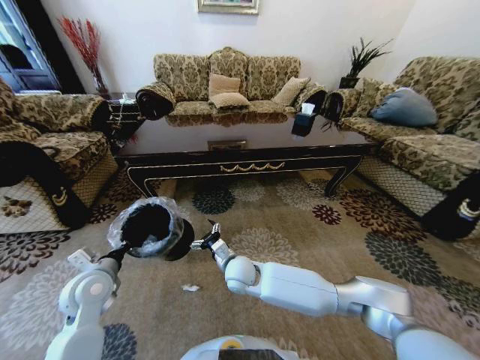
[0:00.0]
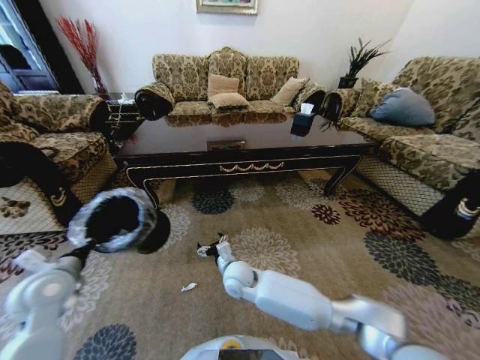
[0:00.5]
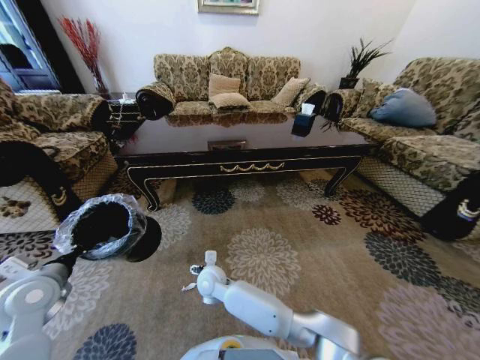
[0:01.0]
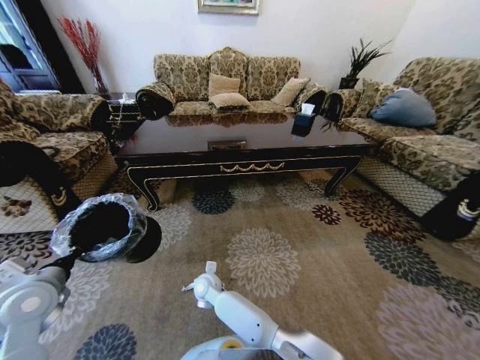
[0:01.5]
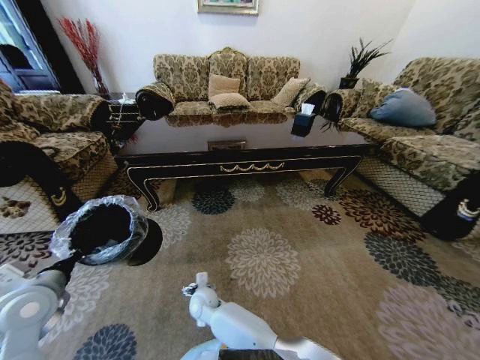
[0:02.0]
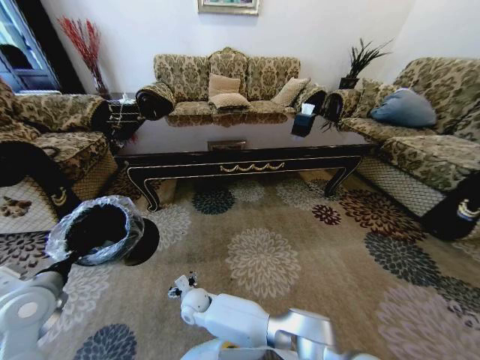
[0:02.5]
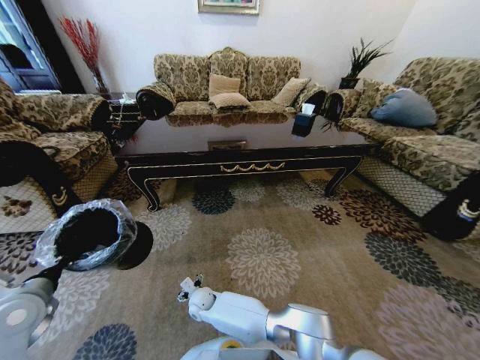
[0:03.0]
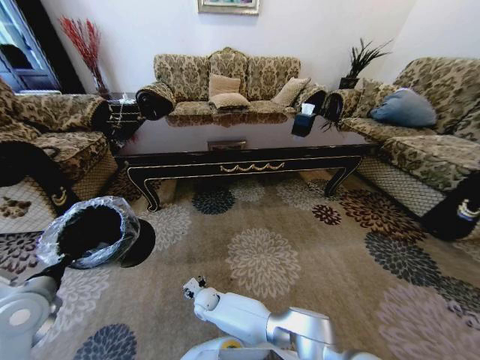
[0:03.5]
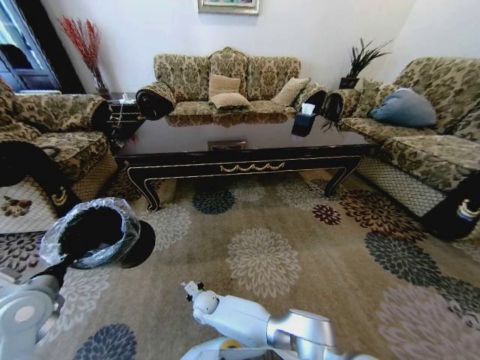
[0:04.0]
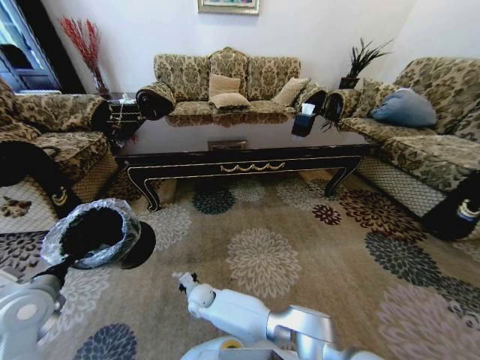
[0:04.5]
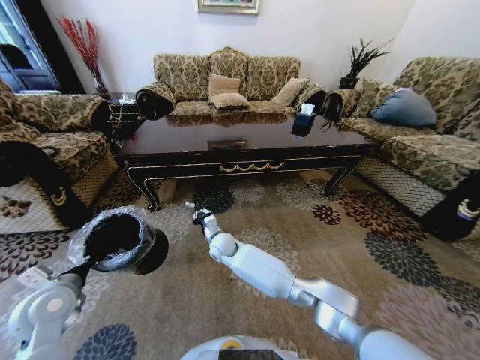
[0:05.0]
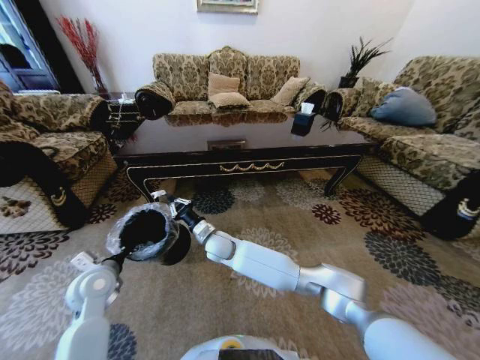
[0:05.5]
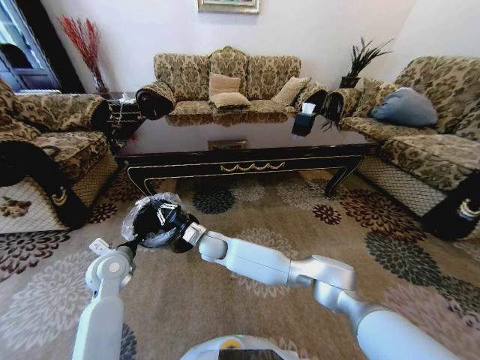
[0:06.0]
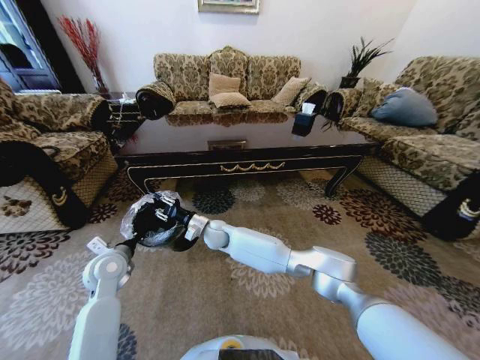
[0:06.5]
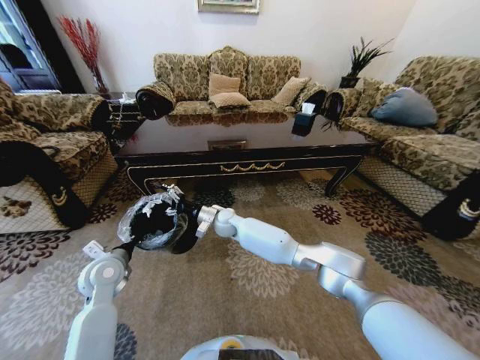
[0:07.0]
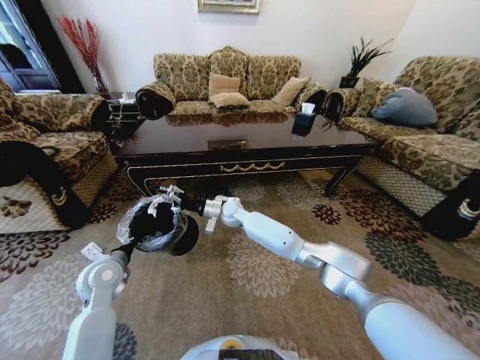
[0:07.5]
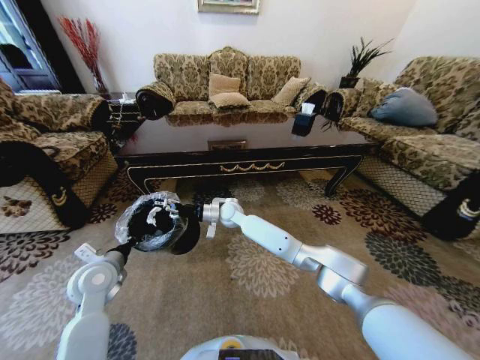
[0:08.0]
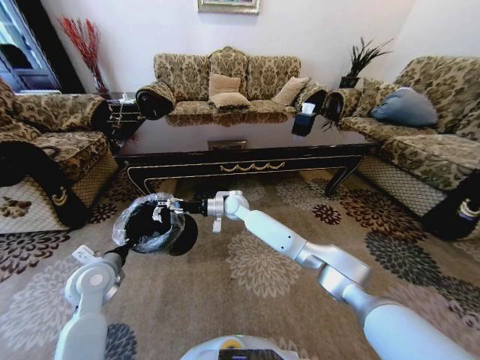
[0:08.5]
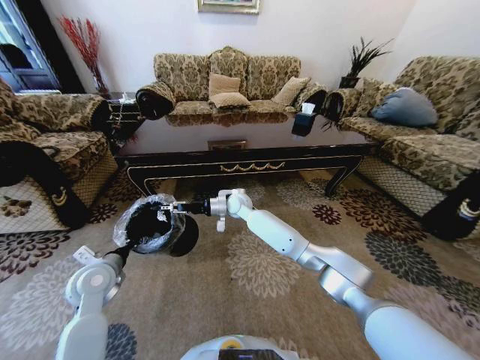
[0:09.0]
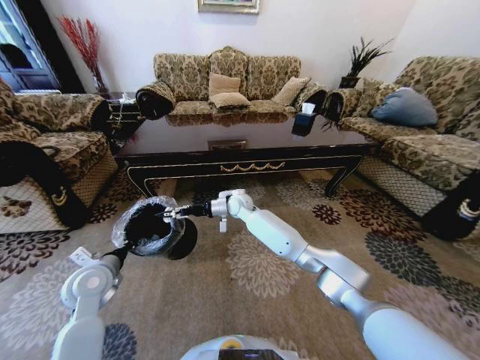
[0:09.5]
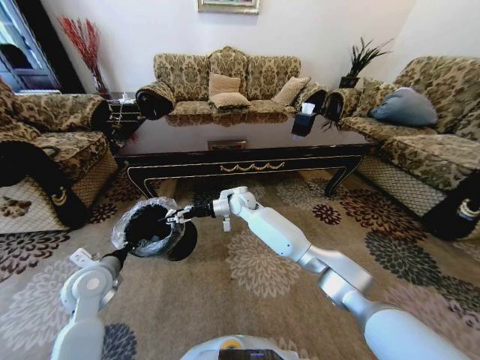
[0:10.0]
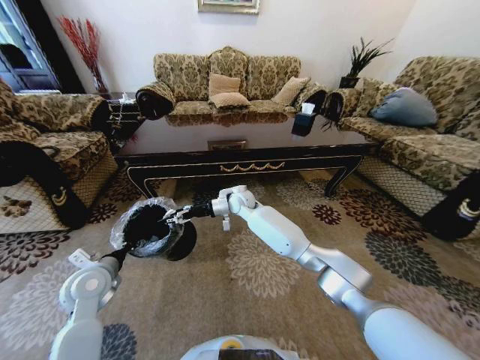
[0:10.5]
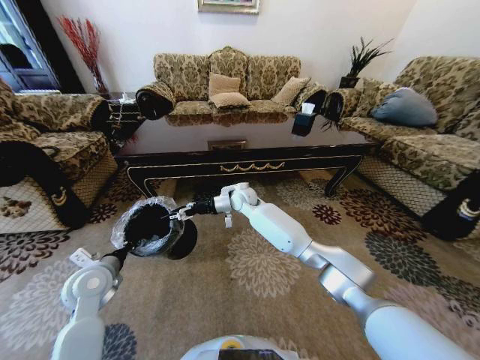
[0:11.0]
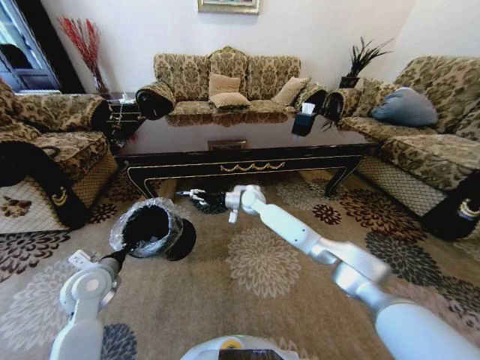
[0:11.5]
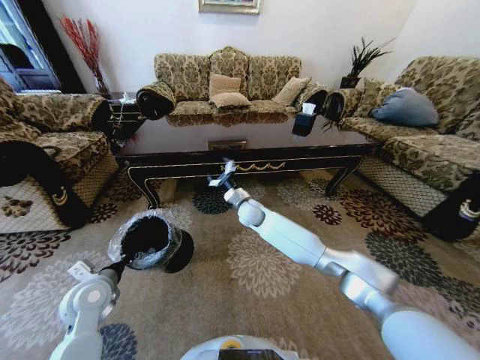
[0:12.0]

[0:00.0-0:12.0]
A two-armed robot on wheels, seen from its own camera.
Task of the whole recording: Move to the front of the table and pick up the trash from the floor, then place it into the trash bin.
0:00.0 to 0:02.0: The right gripper moves downward and to the left, about 20 cm; the left gripper travels to the left and backward by roughly 10 cm.
0:02.0 to 0:04.0: The right gripper moves downward, some 5 cm, and closes up.
0:04.0 to 0:06.0: The left gripper moves forward, to the right and downward, some 15 cm, while the right gripper is displaced upward and forward by roughly 25 cm.
0:06.0 to 0:08.0: The right gripper moves forward, to the right and upward, about 15 cm, and opens its fingers.
0:08.0 to 0:10.0: The right gripper shifts by roughly 5 cm.

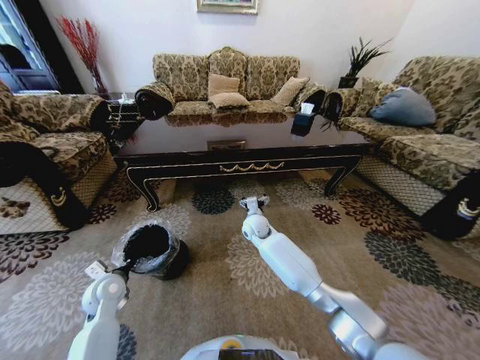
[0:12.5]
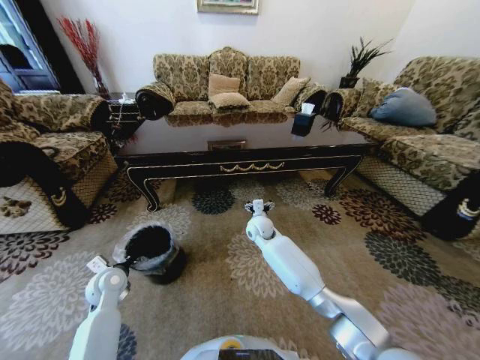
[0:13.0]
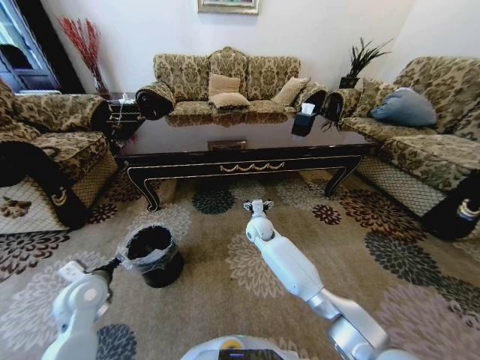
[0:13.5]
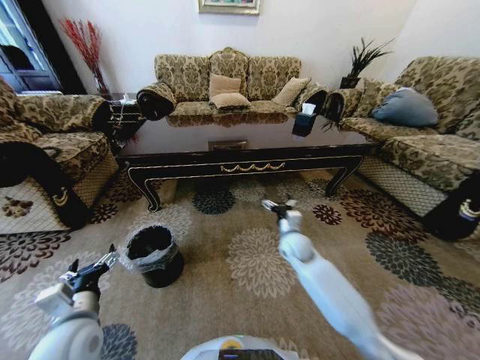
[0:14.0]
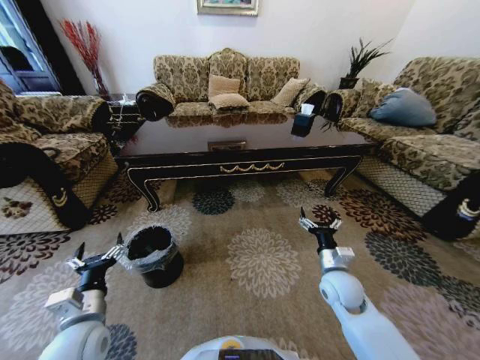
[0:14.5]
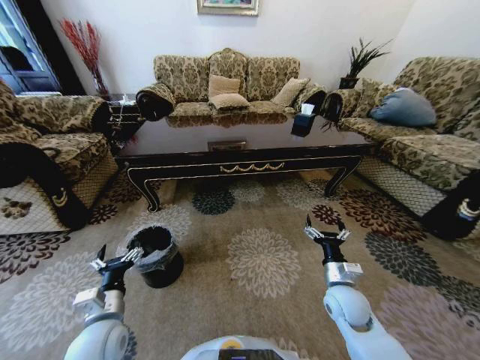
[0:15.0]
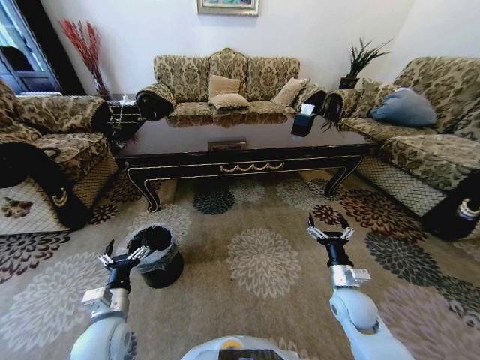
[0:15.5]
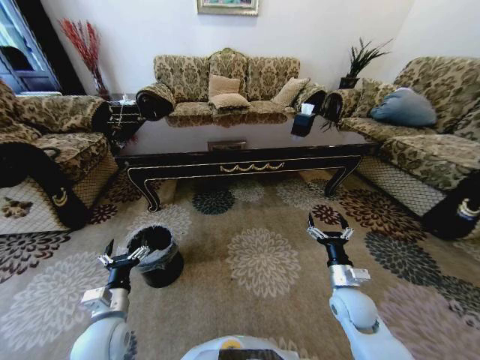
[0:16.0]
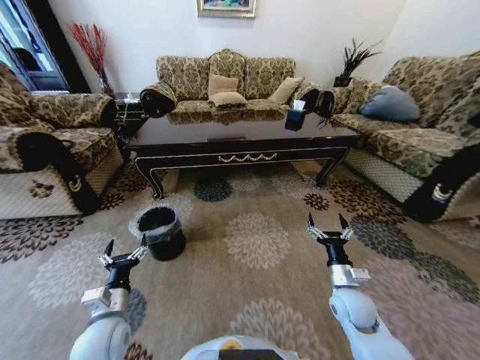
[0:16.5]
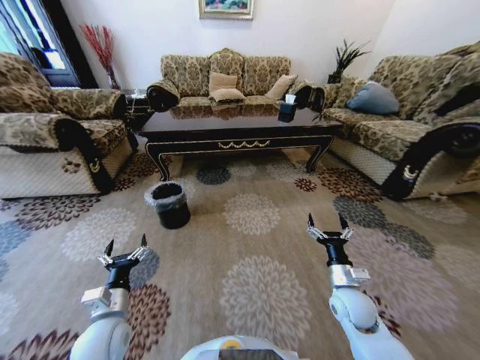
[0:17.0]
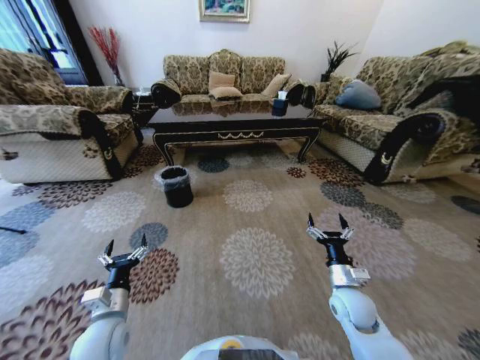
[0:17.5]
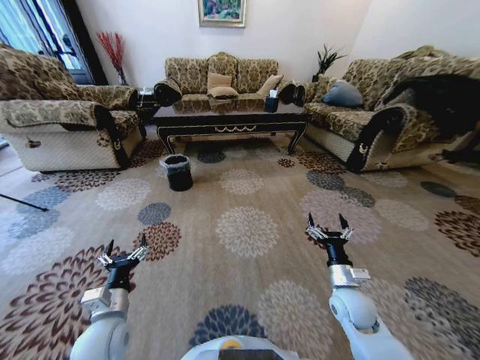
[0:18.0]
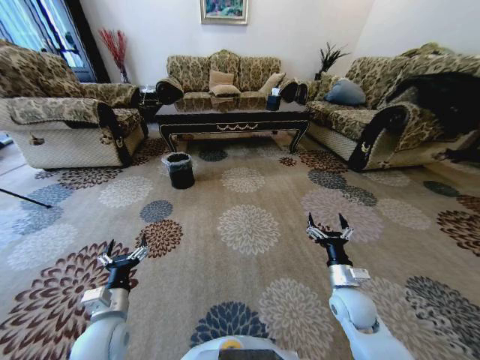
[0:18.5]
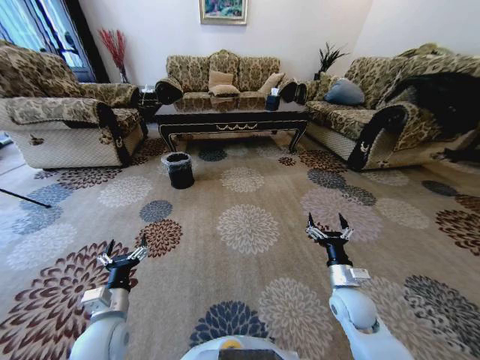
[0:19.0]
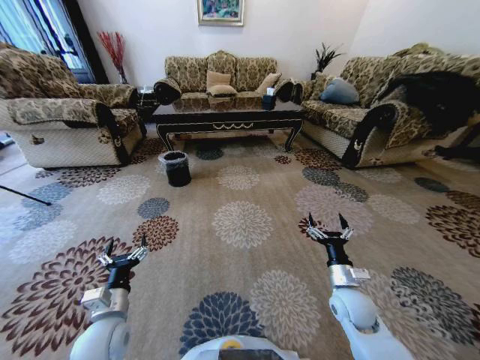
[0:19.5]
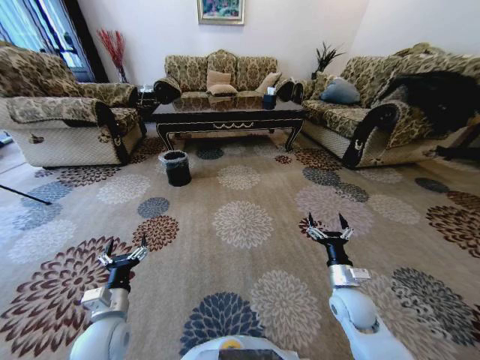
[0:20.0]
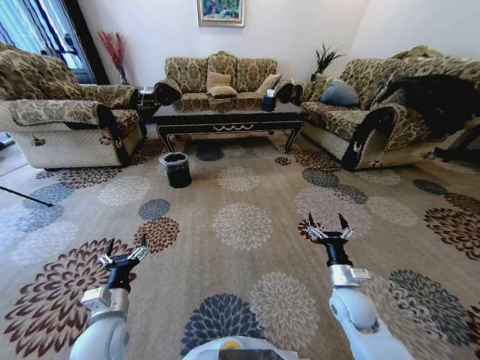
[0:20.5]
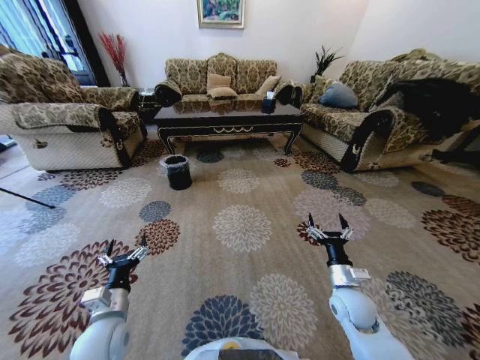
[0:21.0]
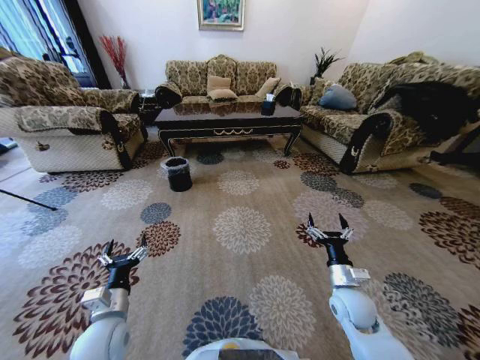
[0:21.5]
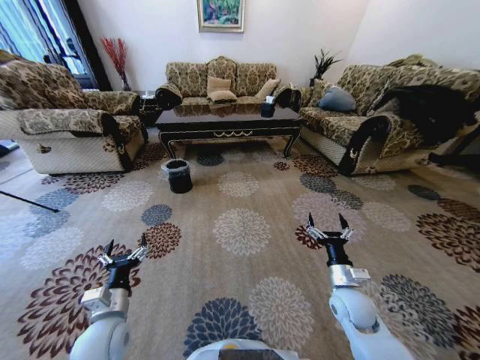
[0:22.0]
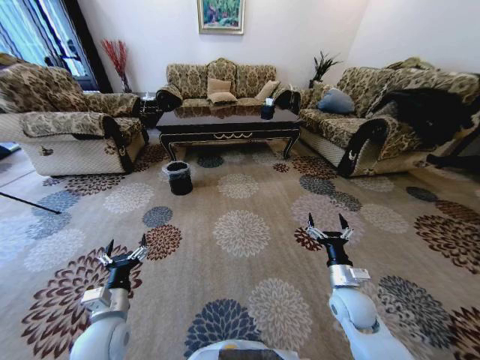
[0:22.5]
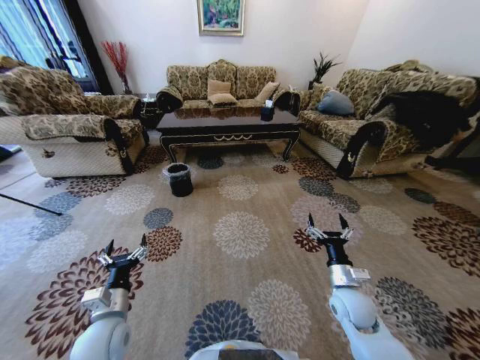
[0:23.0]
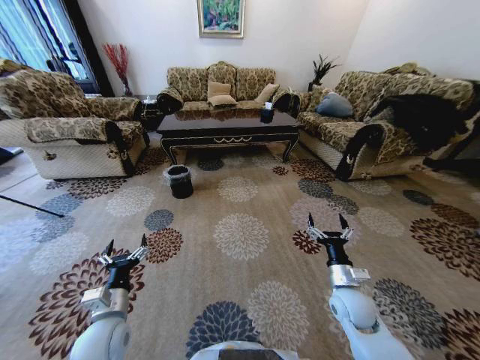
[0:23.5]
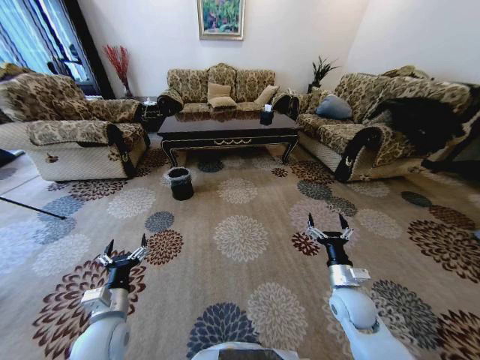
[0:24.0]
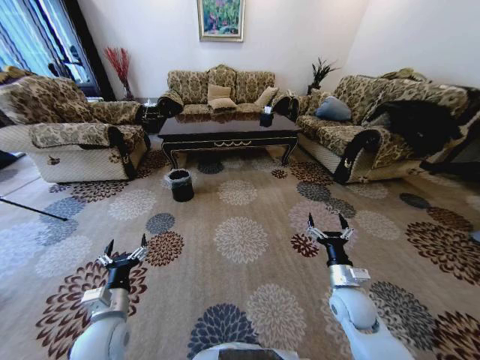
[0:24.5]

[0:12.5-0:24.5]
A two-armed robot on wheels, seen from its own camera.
Task of the whole recording: Move to the front of the table and pick up the trash from the floor, then place it into the trash bin.
0:12.5 to 0:14.5: The left gripper shifts about 15 cm backward, upward and to the right, and opens up. The right gripper is displaced backward and to the right by roughly 30 cm.
0:18.5 to 0:20.5: The two grippers keep their place.

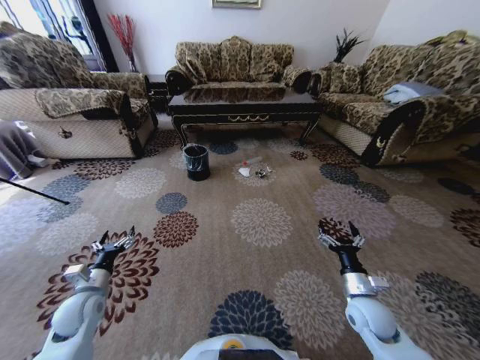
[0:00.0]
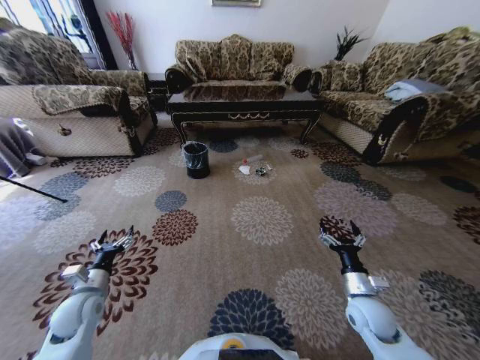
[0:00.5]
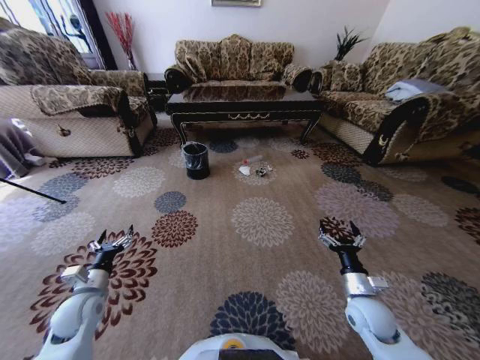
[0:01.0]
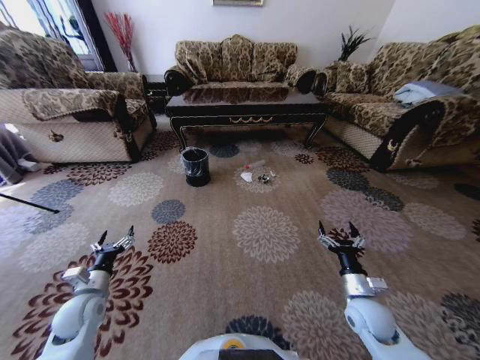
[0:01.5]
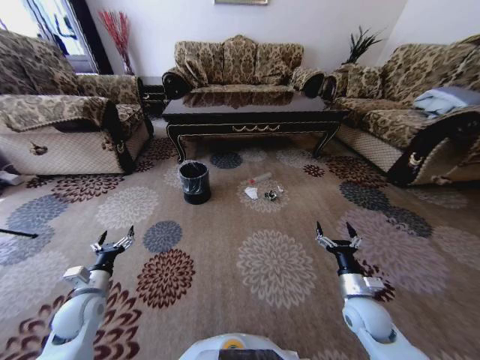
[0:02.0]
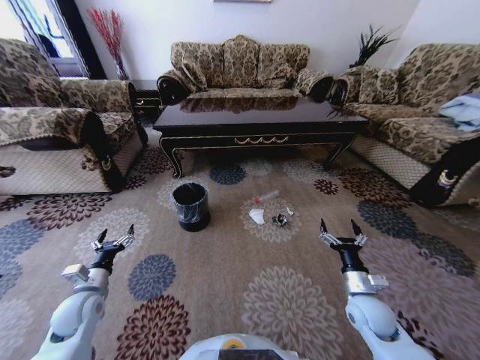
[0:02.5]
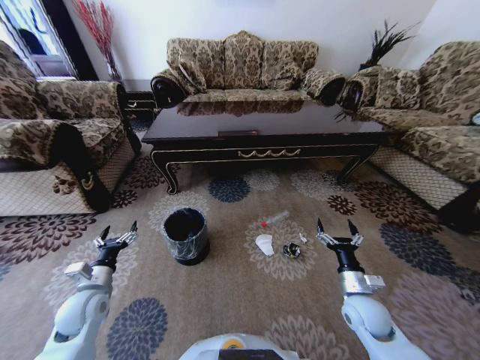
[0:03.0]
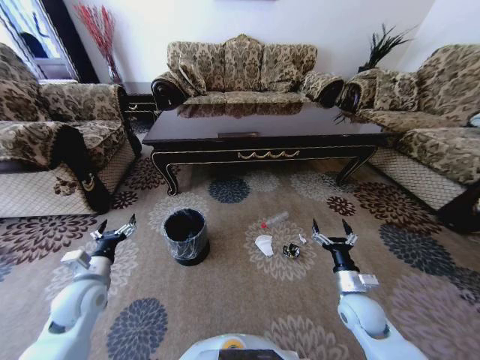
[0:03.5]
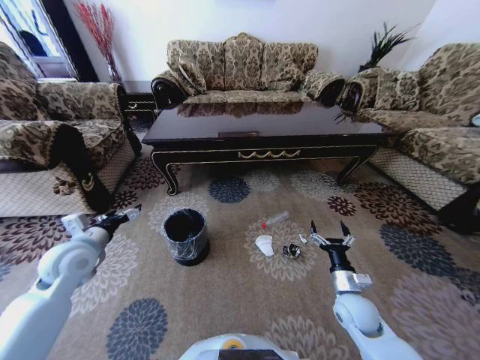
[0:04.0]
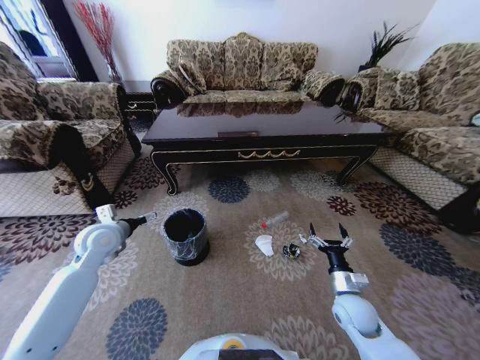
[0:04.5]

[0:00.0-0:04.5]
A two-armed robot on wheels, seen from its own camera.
Task of the whole recording: Move to the front of the table and pick up the trash from the floor, then place it into the trash bin.
0:02.0 to 0:04.5: The left gripper moves forward and upward, about 20 cm.
